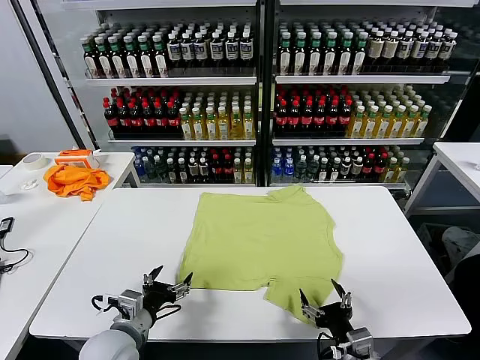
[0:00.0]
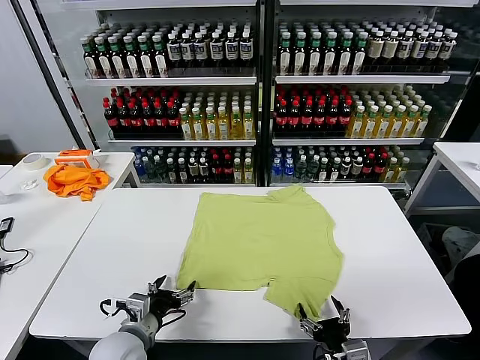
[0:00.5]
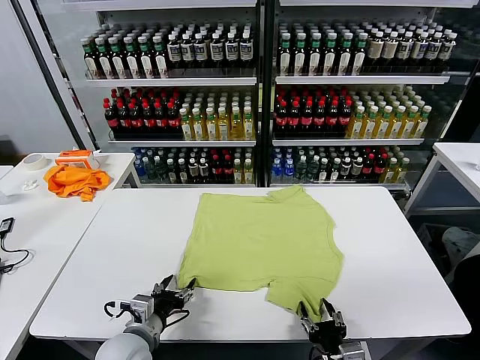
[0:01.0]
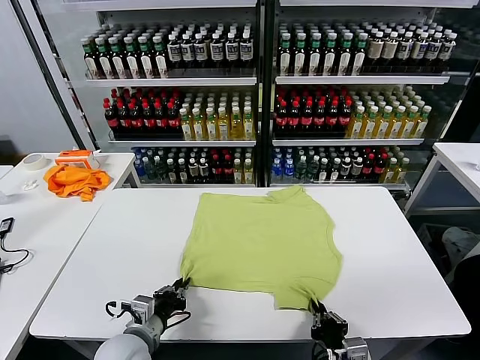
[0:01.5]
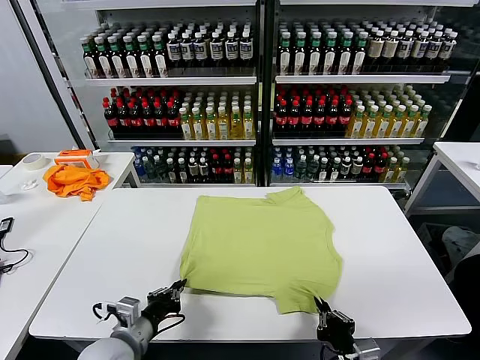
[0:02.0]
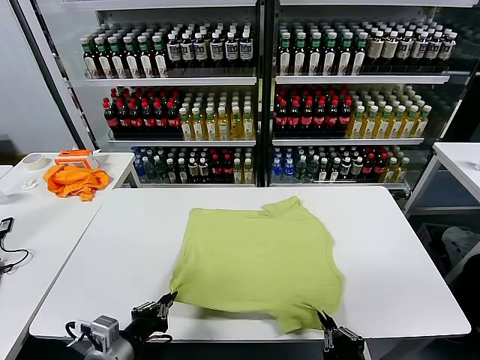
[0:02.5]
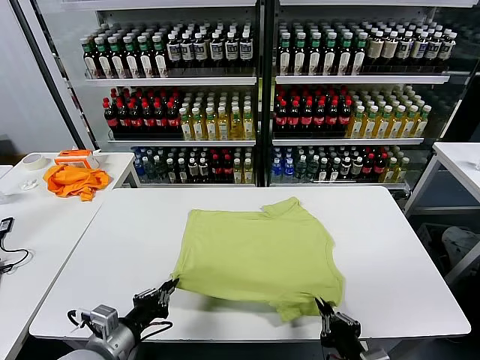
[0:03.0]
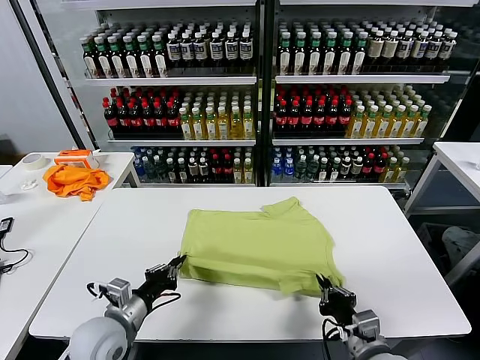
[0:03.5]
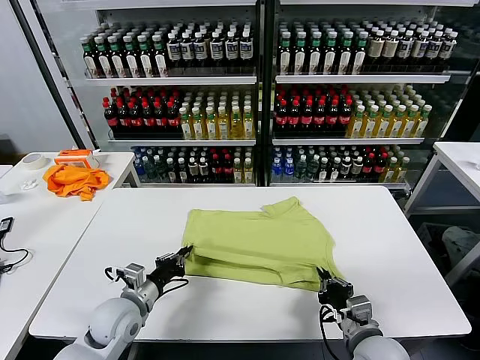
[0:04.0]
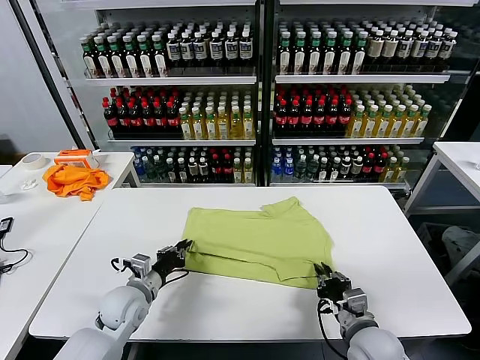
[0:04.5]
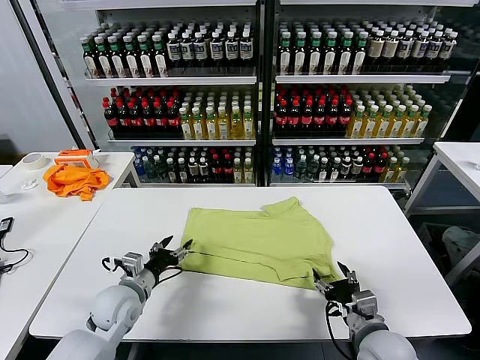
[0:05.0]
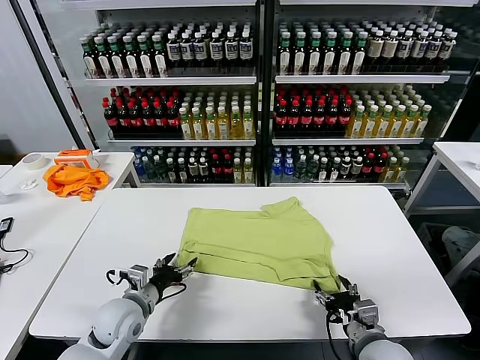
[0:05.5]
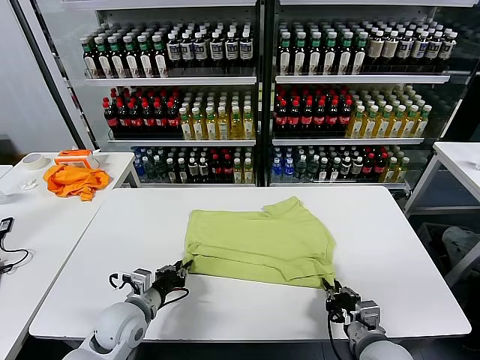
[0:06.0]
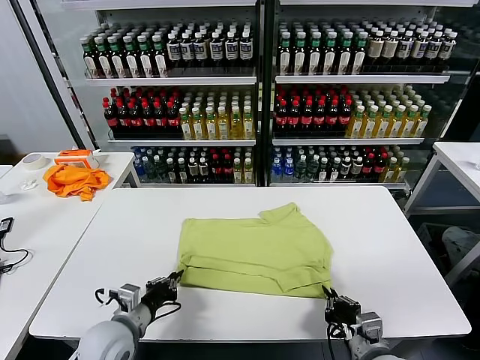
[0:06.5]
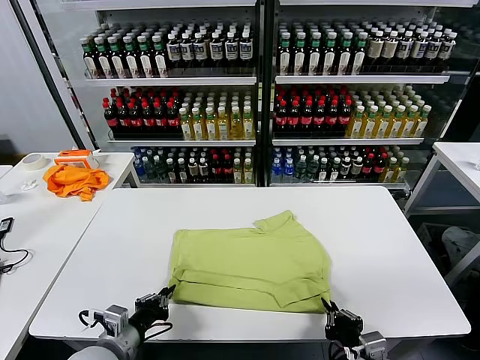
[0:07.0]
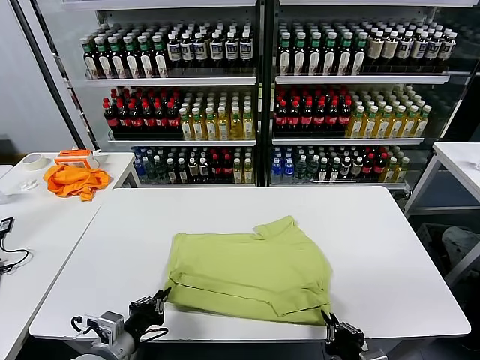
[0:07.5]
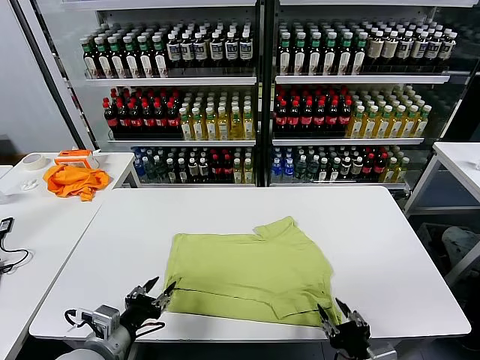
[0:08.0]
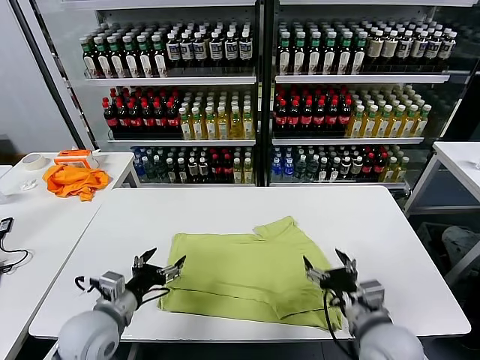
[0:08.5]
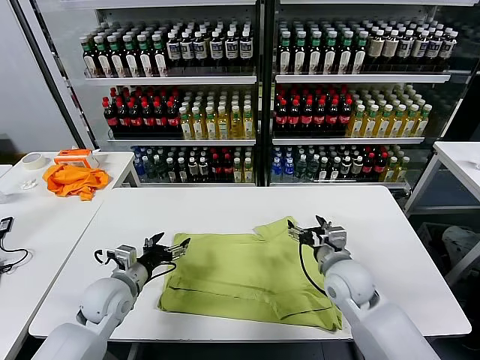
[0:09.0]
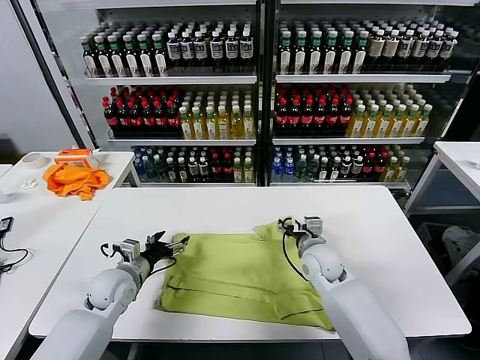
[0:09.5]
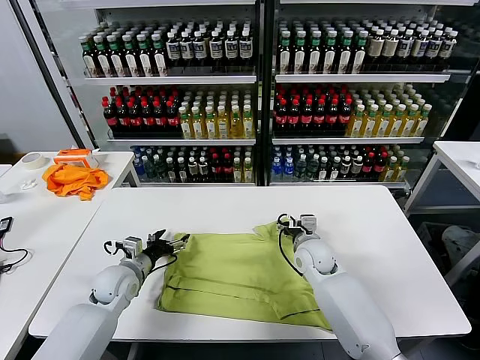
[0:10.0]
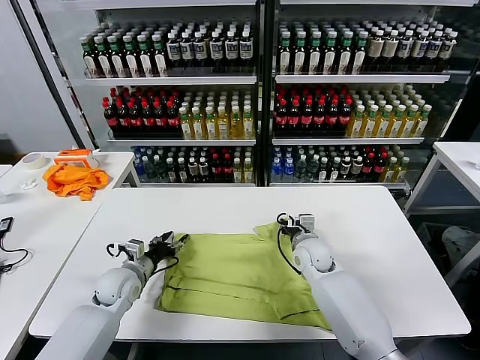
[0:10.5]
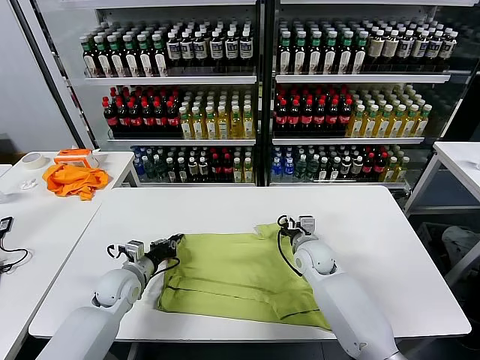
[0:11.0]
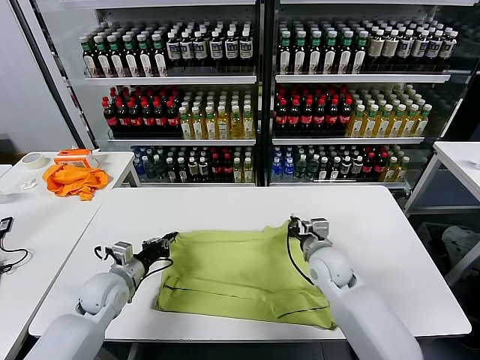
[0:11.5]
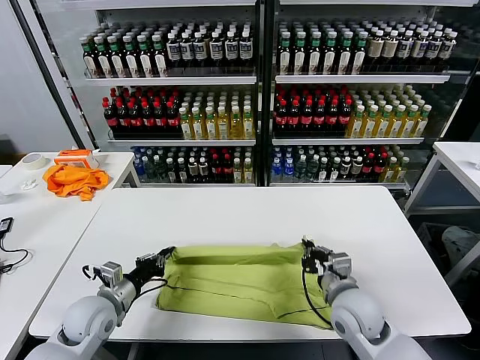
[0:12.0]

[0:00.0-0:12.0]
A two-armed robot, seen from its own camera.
Task of the whole recording: fold and organize the clothes.
Step, 0:00.0 to 0:01.5: use both grippers simultaneously to clamp the lower edge of the clothing fabric.
Step, 0:02.0 to 0:04.5: use both grippers to drag the lower edge of the fabric forward and fold it over the upper edge.
Step, 0:05.0 to 0:08.0: Drag the clothes downward with both gripper.
Step, 0:08.5 to 0:11.0: use both grippers simultaneously to clamp the upper edge of the clothing fabric.
0:02.0 to 0:04.0: Both grippers move forward, some 10 cm.
0:04.0 to 0:06.0: The left gripper opens, then closes again. Meanwhile the right gripper opens, then closes once more.
0:06.0 to 0:08.0: The grippers both shift backward and upward by roughly 10 cm. The right gripper opens its fingers.
0:08.0 to 0:10.0: The left gripper heads forward, covering approximately 20 cm, and opens its fingers. Meanwhile the right gripper goes approximately 30 cm forward.
0:10.0 to 0:12.0: The left gripper shifts about 10 cm backward, and closes up, while the right gripper moves backward, about 15 cm, and closes up.

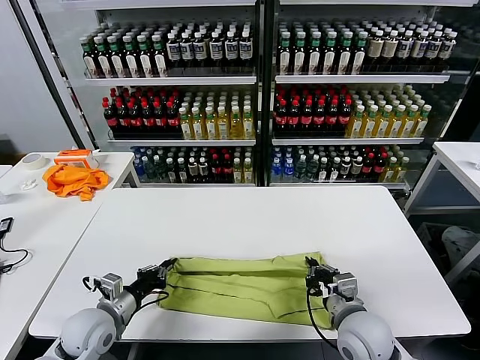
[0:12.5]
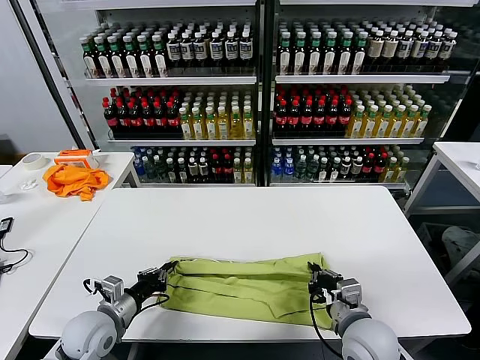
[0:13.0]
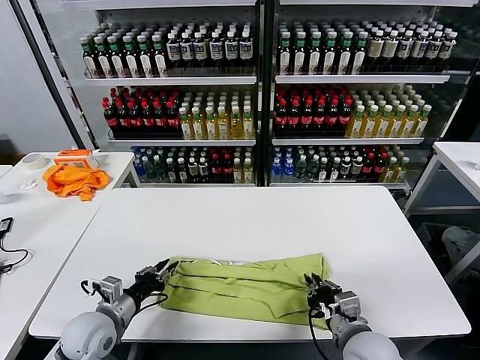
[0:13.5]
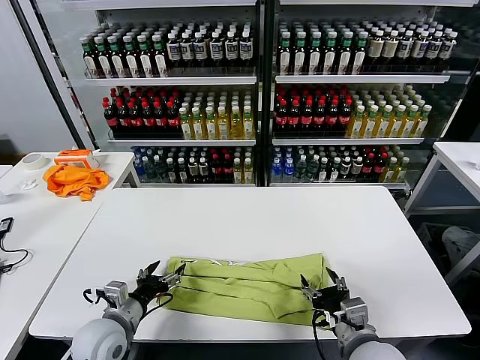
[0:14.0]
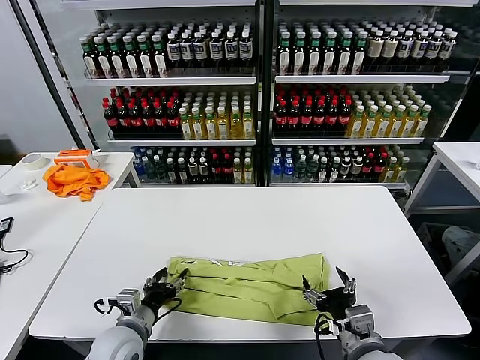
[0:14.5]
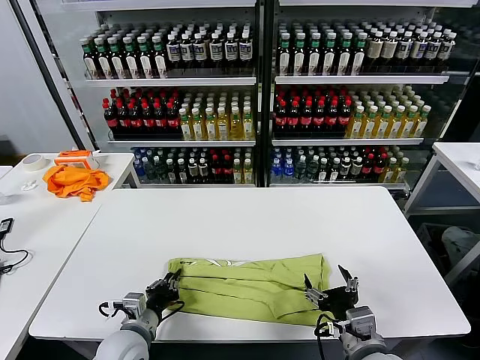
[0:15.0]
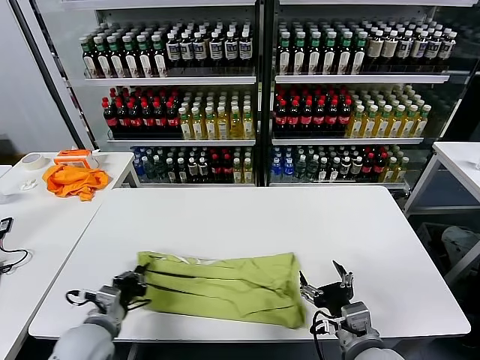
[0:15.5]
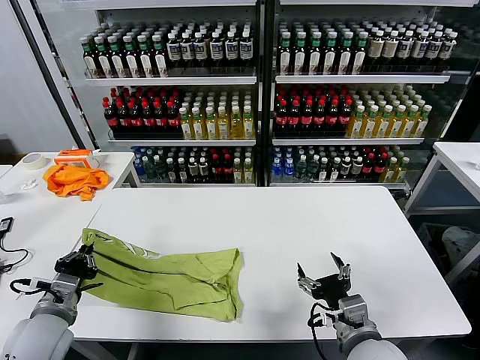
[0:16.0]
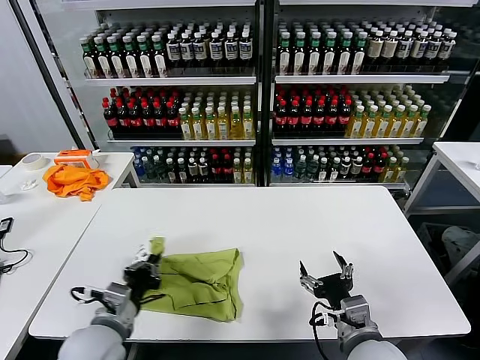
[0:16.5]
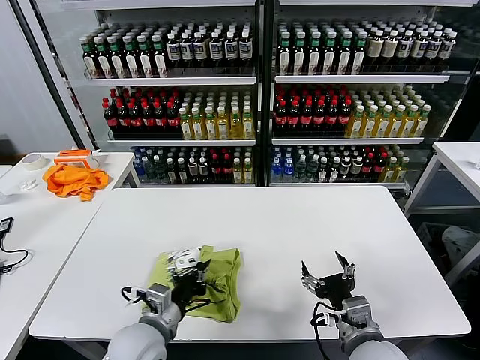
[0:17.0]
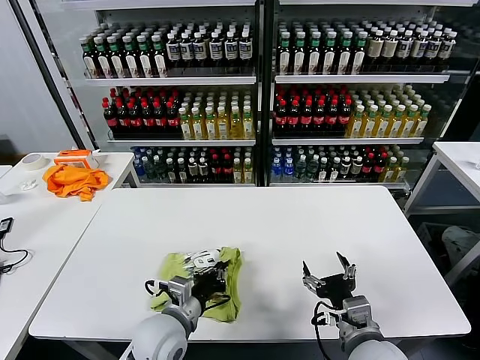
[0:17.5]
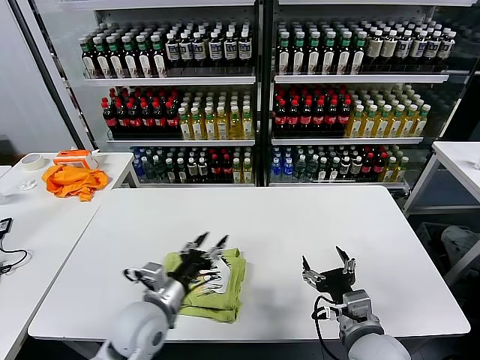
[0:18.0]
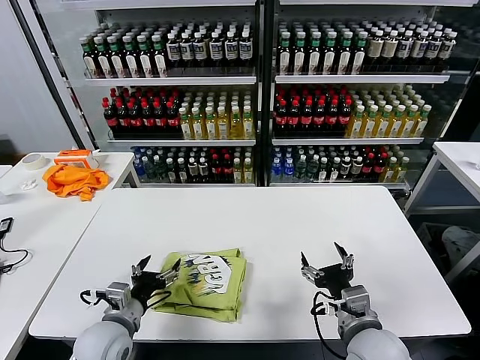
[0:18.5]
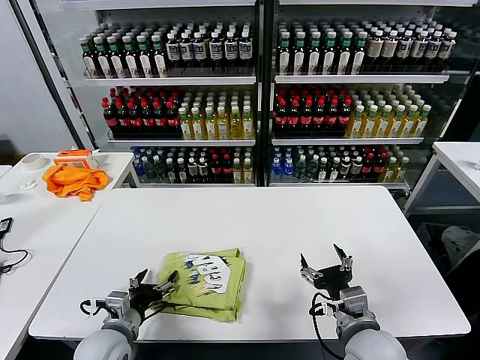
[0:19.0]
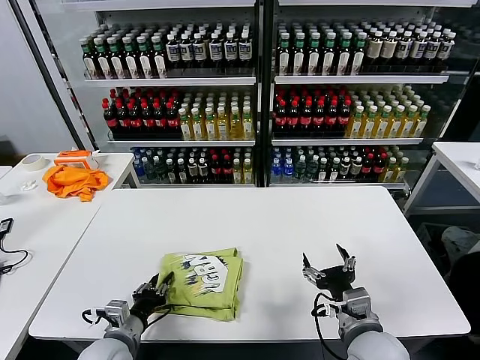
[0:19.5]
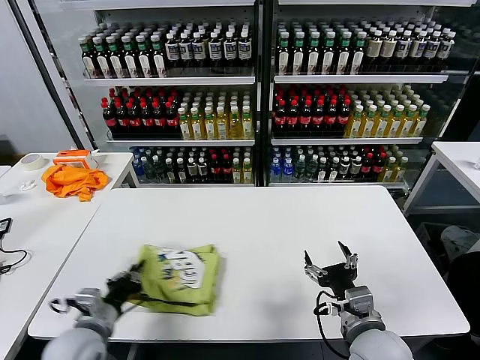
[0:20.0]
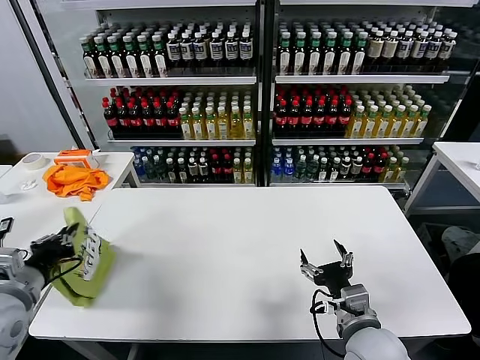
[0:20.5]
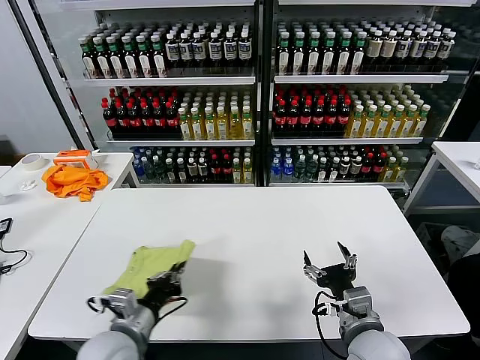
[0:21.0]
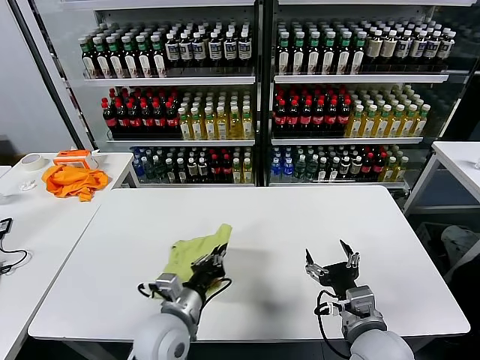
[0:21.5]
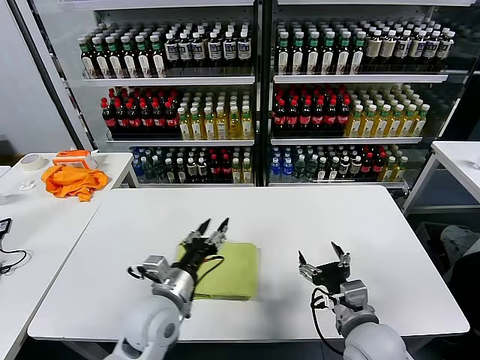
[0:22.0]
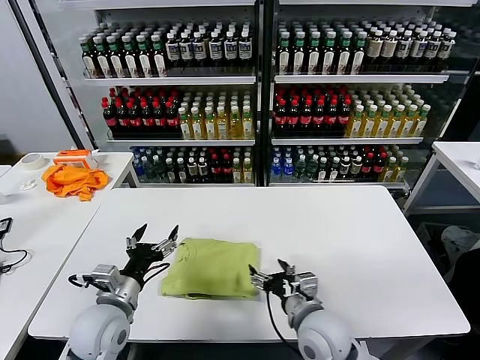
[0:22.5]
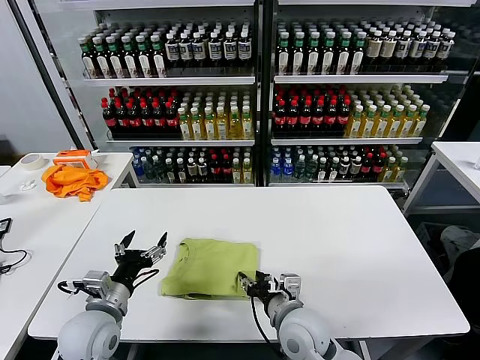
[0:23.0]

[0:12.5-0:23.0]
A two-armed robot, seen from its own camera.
Task of the whole recording: fold and organize the clothes.
Step, 0:14.0 to 0:15.0: use the left gripper to clamp the left edge of the fabric.
Step, 0:15.5 to 0:17.5: use the left gripper to drag the left edge of the fabric to the left and folds it over the right edge.
Step, 0:18.0 to 0:21.5: Flip the folded clothes over with left gripper.
0:12.5 to 0:14.5: The left gripper travels to the right by some 5 cm, and opens; the right gripper shifts about 5 cm backward, and opens.
0:14.5 to 0:16.5: The left gripper travels upward by approximately 10 cm, travels to the left and back again, some 10 cm each way, and closes its fingers.
0:16.5 to 0:19.0: The left gripper travels downward by some 10 cm, moves about 10 cm to the right and comes back, and opens.
0:19.0 to 0:21.0: The left gripper heads upward, covering about 5 cm, and closes up.
0:21.0 to 0:23.0: The left gripper reaches roughly 10 cm to the right, then returns, and opens its fingers; the right gripper heads to the left and forward, covering about 10 cm.

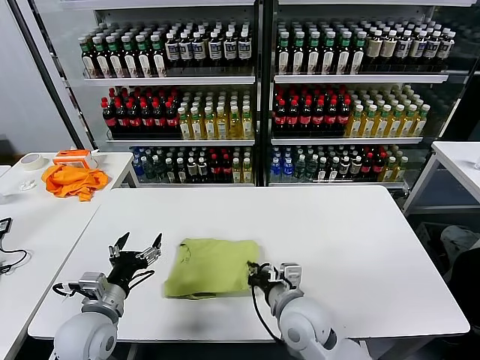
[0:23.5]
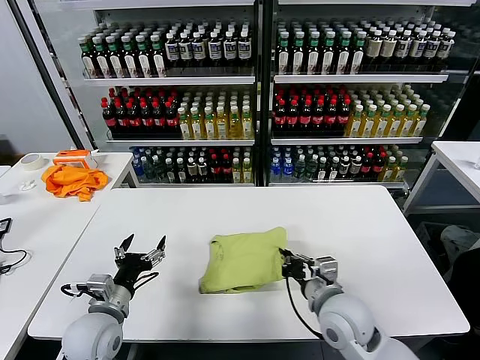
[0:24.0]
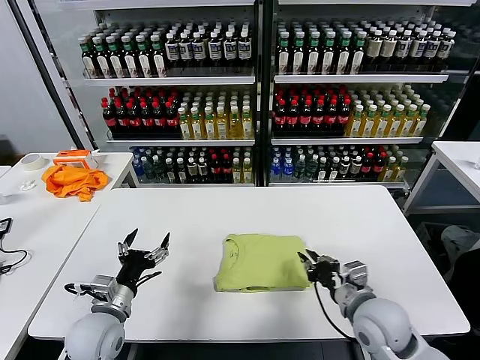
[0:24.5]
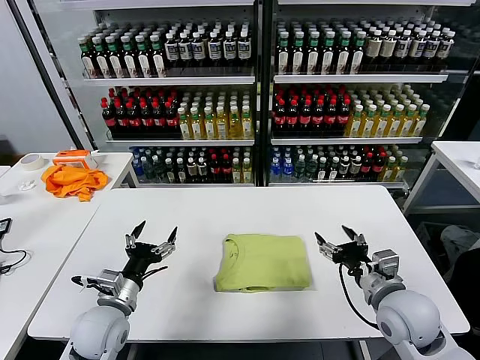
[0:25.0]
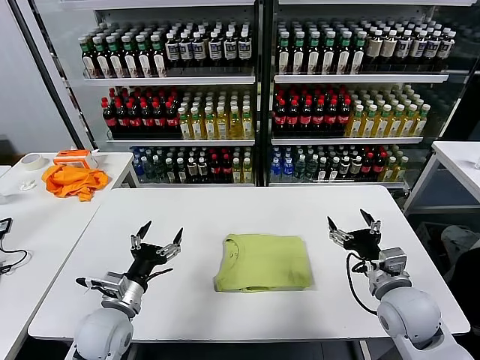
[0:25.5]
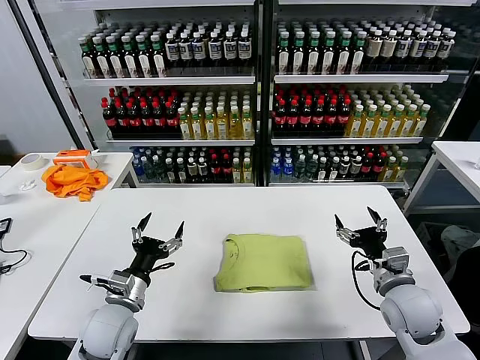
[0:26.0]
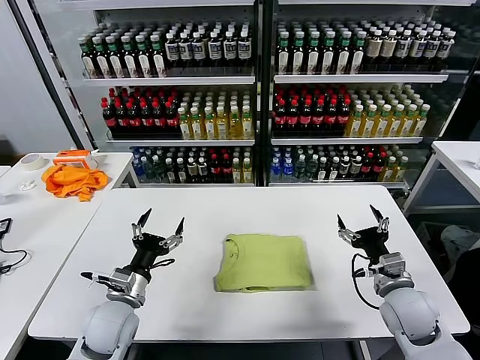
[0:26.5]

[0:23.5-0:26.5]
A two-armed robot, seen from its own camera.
Task of the whole recording: fold and organize the clothes.
0:23.5 to 0:25.0: The right gripper shifts roughly 20 cm to the right, and opens.
0:25.0 to 0:26.5: The right gripper moves about 5 cm.
